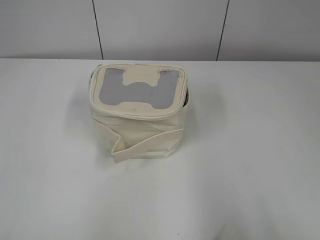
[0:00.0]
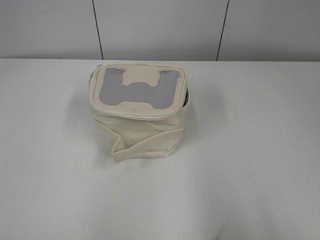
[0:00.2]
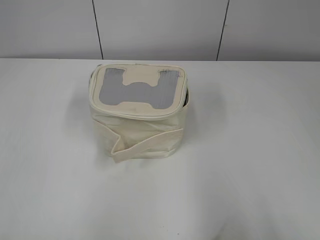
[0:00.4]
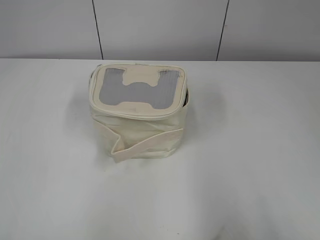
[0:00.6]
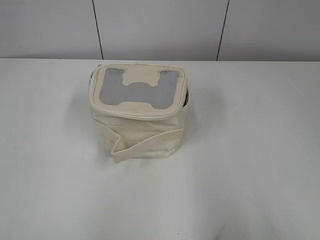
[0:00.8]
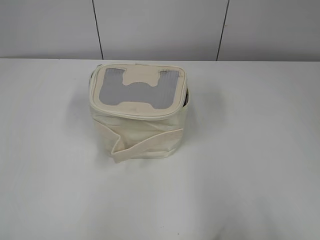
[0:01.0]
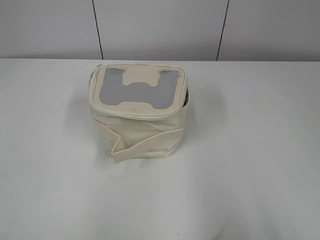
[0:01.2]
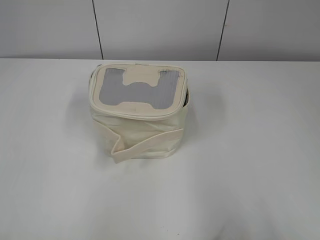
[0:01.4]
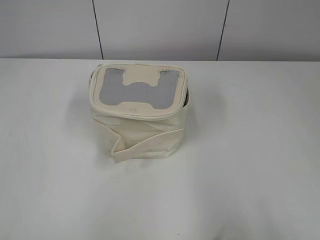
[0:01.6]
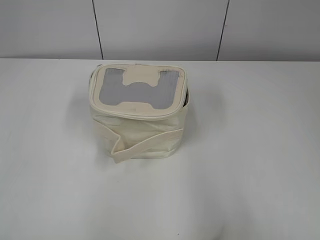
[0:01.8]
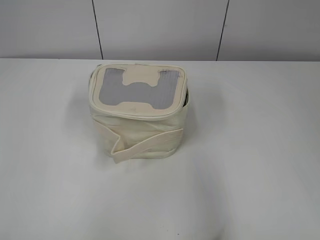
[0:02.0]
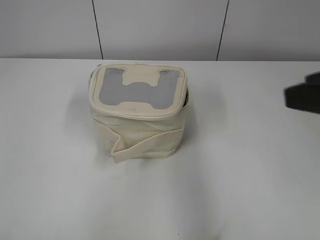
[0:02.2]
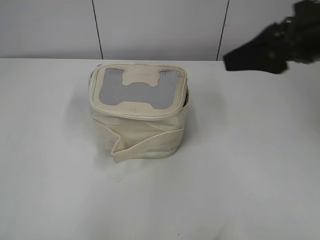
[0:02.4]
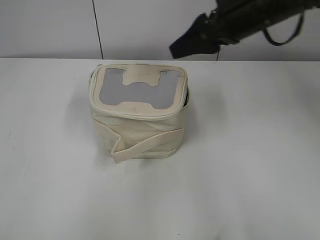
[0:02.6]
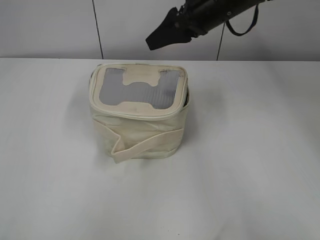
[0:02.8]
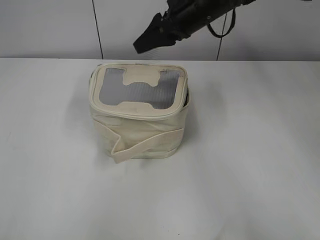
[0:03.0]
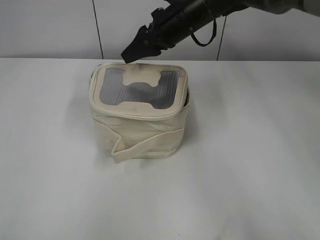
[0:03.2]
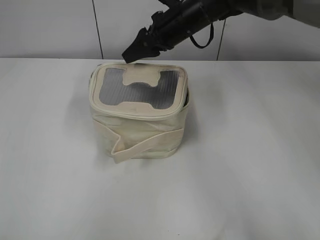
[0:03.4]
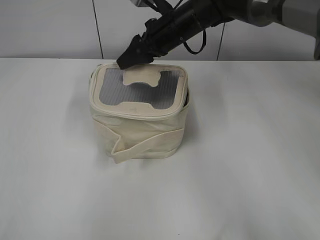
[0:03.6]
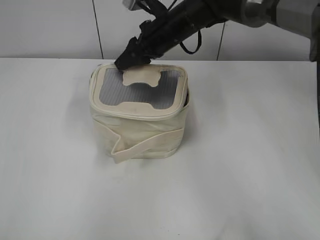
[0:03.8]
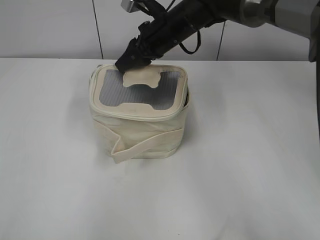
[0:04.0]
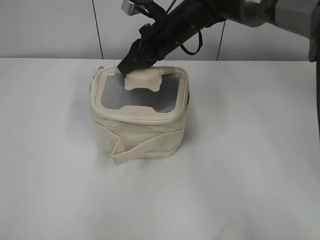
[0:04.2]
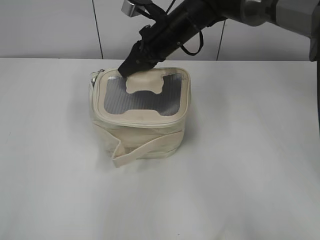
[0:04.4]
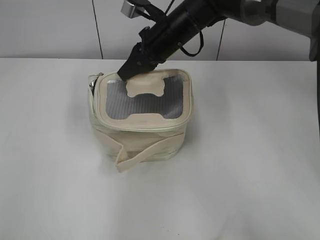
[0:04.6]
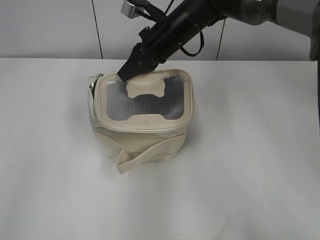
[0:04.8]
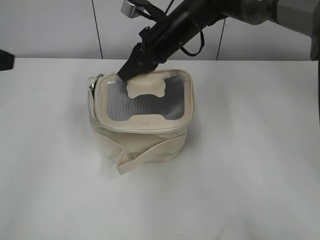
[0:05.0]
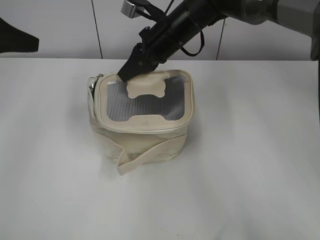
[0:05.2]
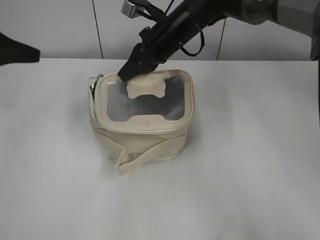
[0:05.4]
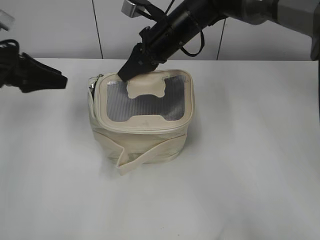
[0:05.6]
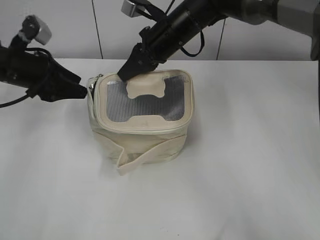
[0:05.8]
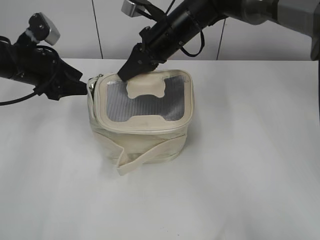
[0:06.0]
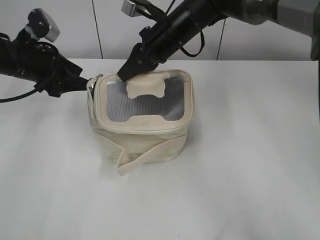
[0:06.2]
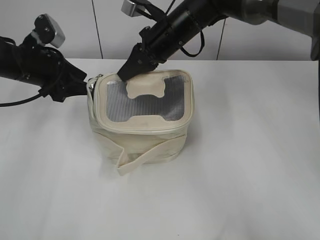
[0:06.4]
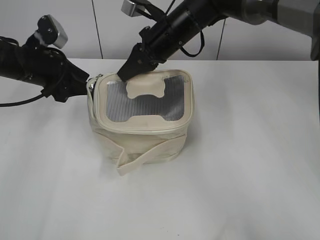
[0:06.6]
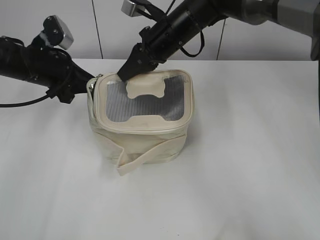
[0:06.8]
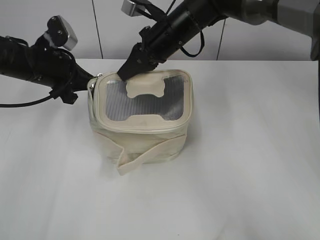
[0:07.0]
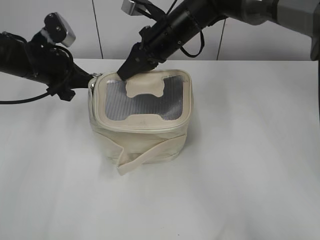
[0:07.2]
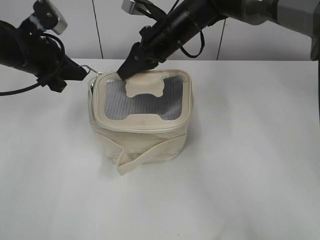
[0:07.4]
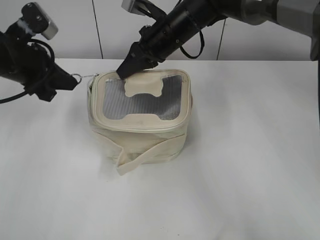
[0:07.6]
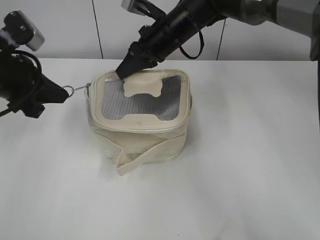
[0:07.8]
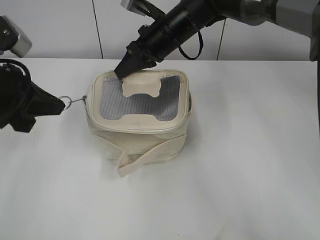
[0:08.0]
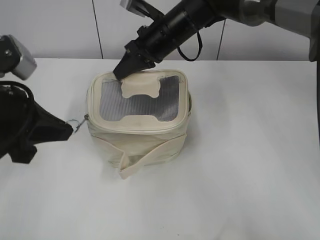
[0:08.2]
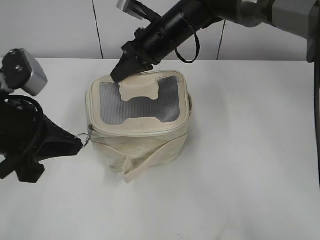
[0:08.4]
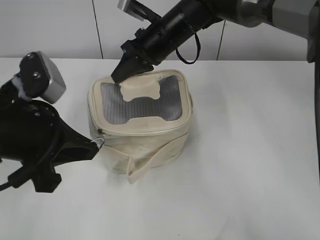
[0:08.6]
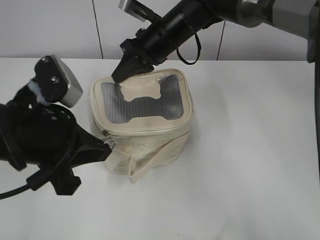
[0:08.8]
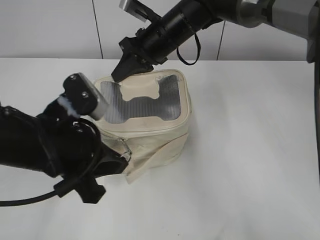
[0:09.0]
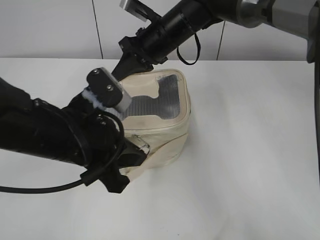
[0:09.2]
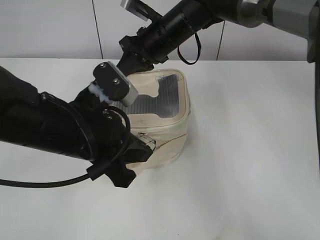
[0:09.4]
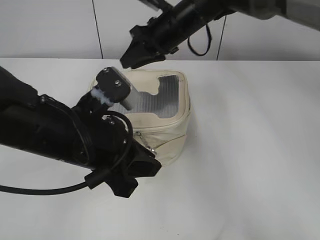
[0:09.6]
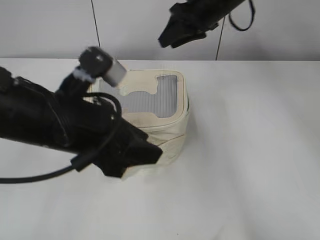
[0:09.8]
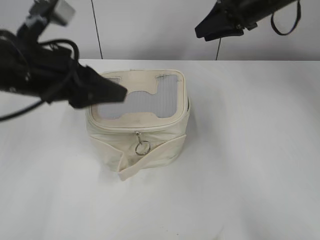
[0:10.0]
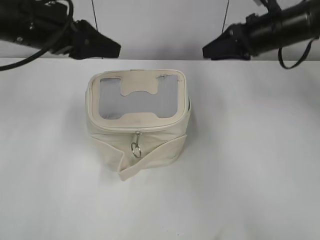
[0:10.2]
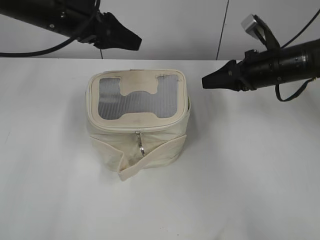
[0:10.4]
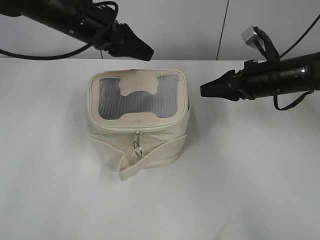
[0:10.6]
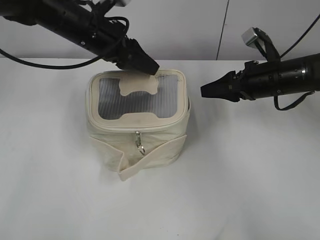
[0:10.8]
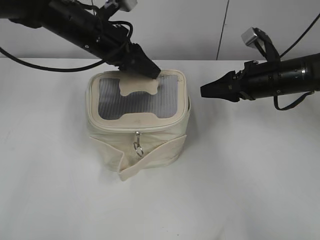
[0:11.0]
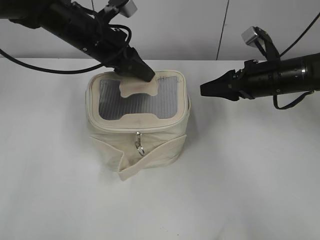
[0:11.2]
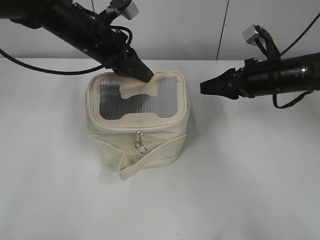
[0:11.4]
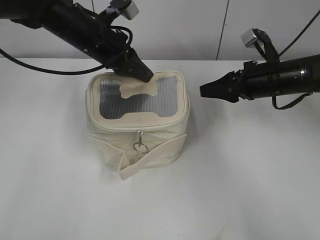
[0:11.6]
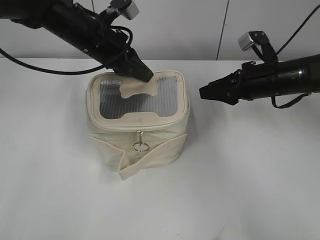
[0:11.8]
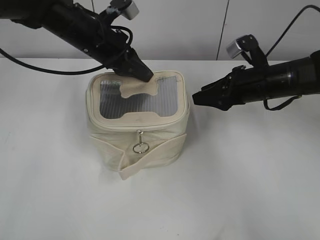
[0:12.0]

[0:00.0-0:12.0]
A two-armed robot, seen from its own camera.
Step, 0:00.0 to 0:09.4: Zip up the bag with your left hand.
0:01.6 to 0:03.0: The right gripper is displaced forward and to the left by some 50 cm.
0:03.0 to 0:04.4: The right gripper heads downward and to the left, covering some 10 cm, and closes up.
0:04.4 to 0:06.0: The left gripper is displaced forward by approximately 35 cm, and opens its fingers.
0:06.0 to 0:07.6: The left gripper closes its fingers.
0:07.6 to 0:09.0: The left gripper goes approximately 20 cm backward and to the right.
0:09.0 to 0:10.4: The left gripper shifts approximately 20 cm forward and upward, and opens its fingers. Meanwhile the right gripper shifts about 20 cm to the right, and opens its fingers.
0:10.4 to 0:12.0: The left gripper heads downward, covering roughly 5 cm, and closes up.

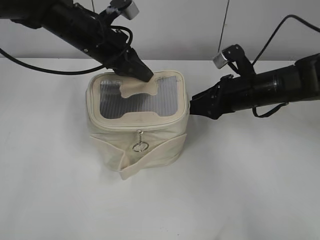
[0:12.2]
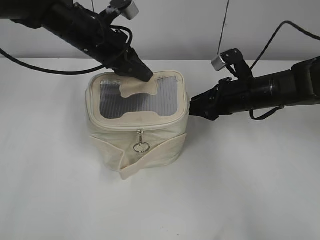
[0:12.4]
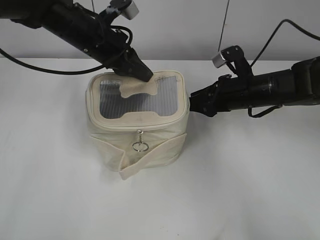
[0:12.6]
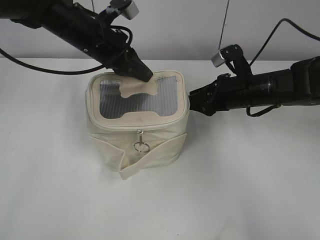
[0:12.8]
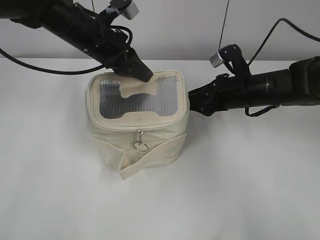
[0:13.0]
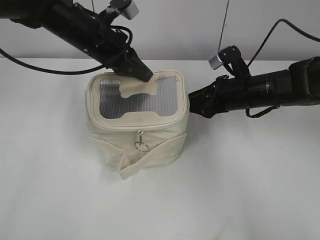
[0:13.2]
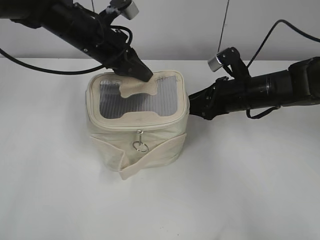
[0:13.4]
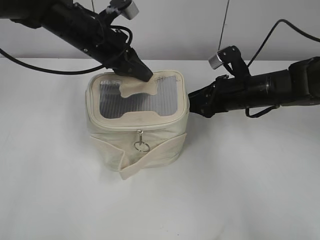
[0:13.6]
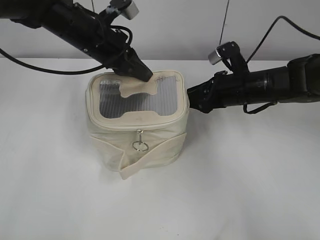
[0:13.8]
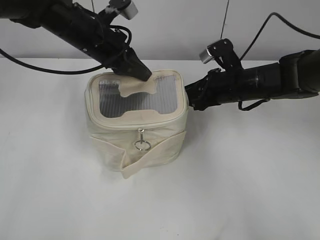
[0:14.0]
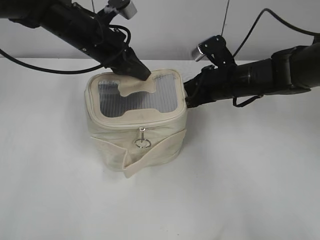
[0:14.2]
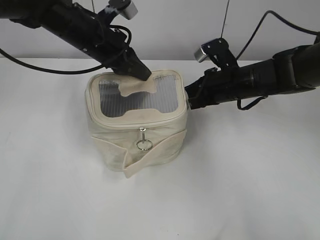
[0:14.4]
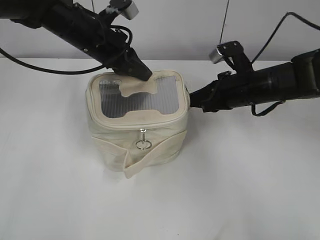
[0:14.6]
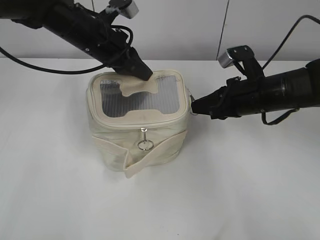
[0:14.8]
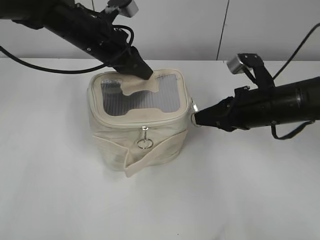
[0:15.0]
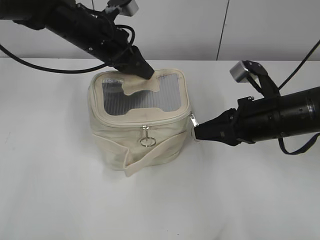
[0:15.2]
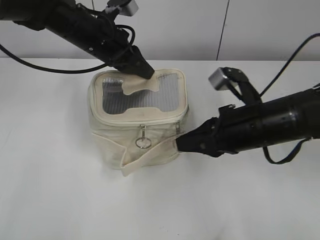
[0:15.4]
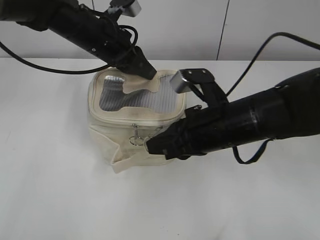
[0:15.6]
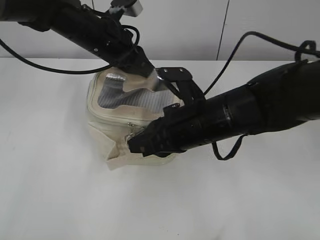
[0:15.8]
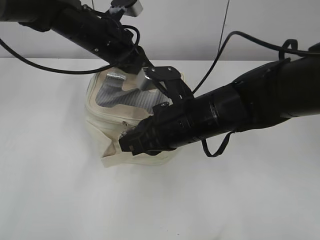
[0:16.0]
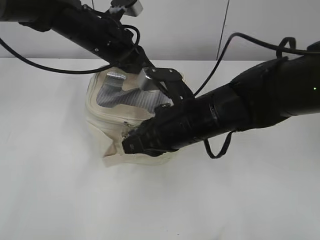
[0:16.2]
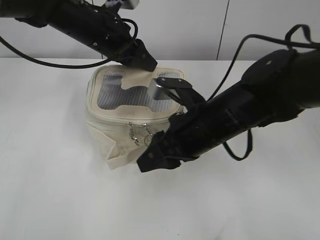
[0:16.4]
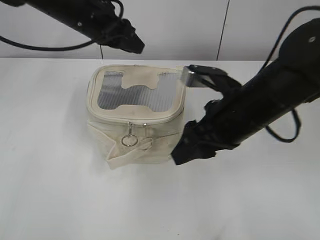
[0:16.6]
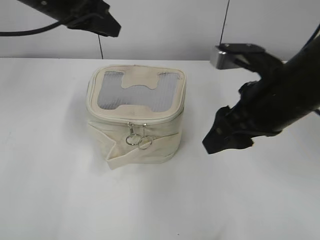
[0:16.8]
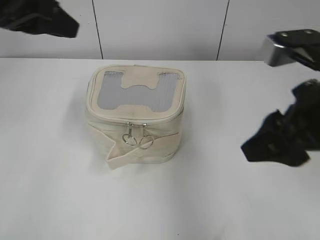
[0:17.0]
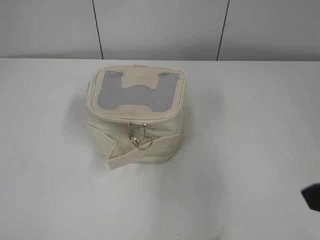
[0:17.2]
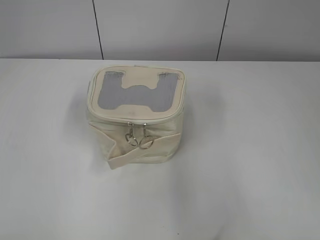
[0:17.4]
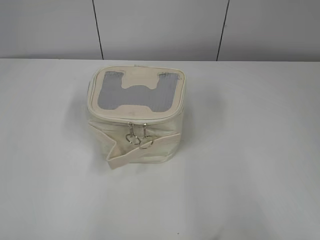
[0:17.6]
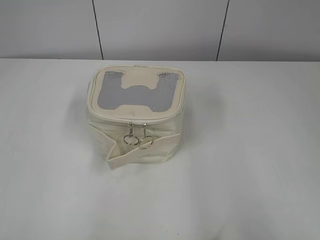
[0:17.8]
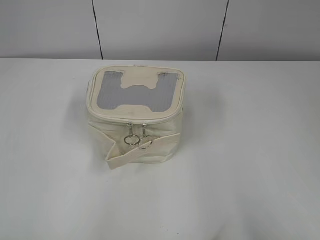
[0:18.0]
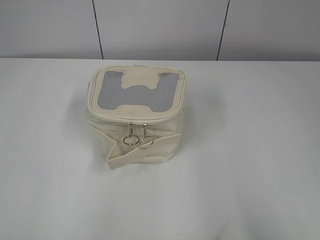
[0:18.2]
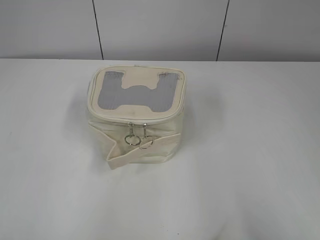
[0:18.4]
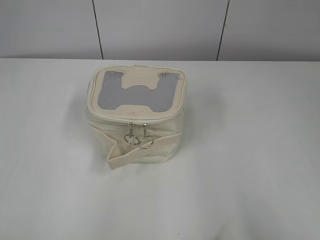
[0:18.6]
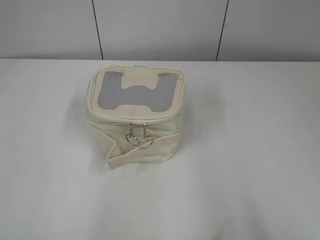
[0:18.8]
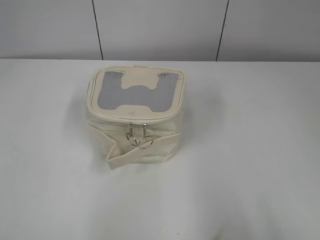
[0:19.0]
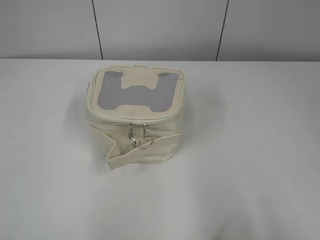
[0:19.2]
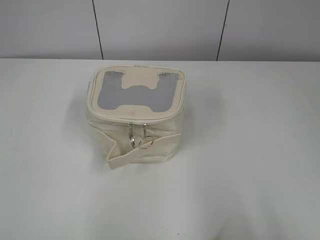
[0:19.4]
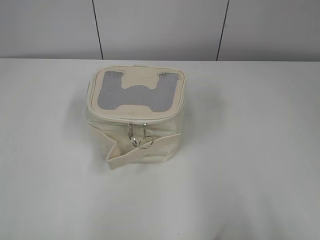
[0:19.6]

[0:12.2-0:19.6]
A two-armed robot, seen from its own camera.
Step, 0:12.2 to 0:16.2: Zip up the bag with your right hand.
0:12.2 to 0:13.6: There are only small adjustments of the grippers.
0:13.6 to 0:15.2: The right gripper is displaced backward by approximately 10 cm, and closes up.
0:15.2 to 0:16.6: The right gripper goes about 5 cm to the left, and opens. The left gripper opens up.
0:16.6 to 0:18.2: The left gripper moves backward and to the left, roughly 50 cm. The right gripper heads backward and to the right, covering about 30 cm.

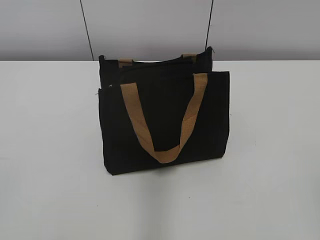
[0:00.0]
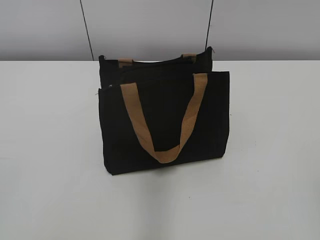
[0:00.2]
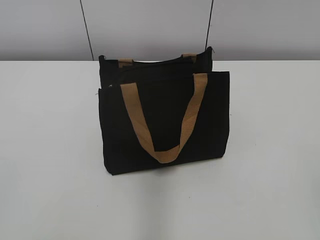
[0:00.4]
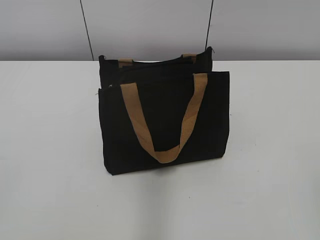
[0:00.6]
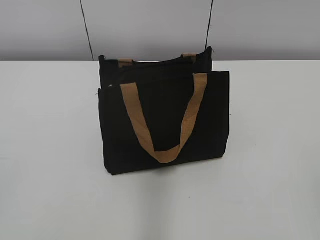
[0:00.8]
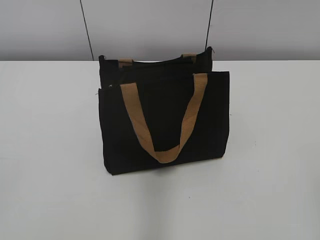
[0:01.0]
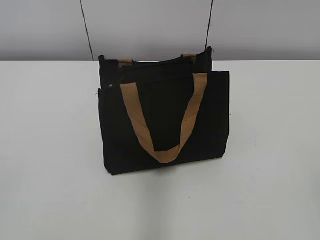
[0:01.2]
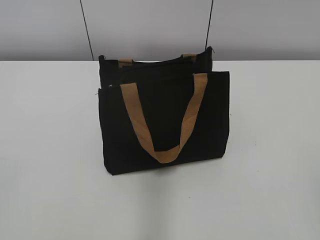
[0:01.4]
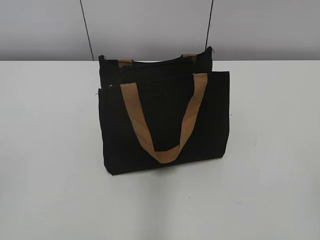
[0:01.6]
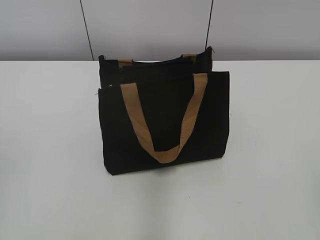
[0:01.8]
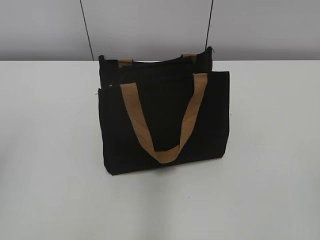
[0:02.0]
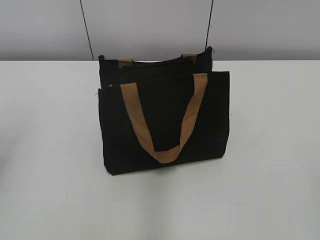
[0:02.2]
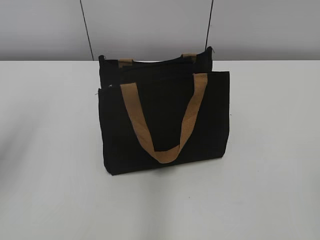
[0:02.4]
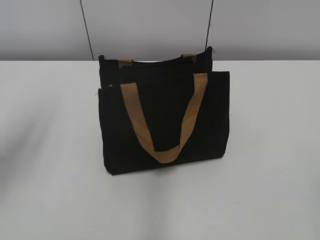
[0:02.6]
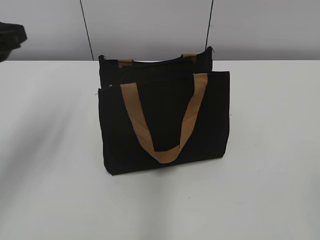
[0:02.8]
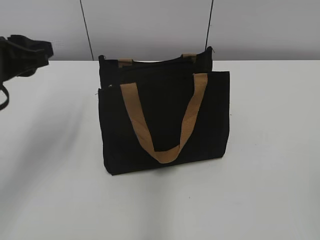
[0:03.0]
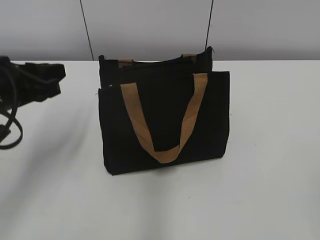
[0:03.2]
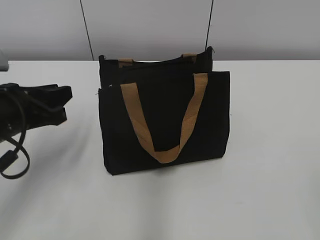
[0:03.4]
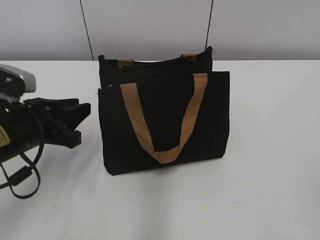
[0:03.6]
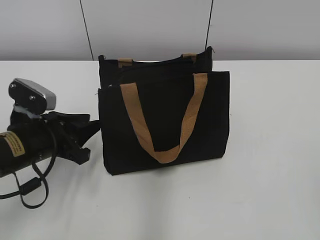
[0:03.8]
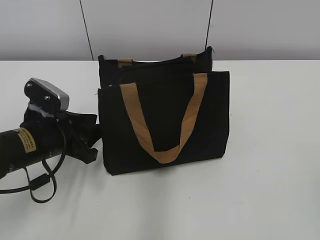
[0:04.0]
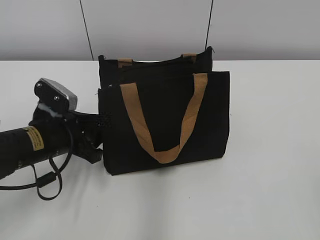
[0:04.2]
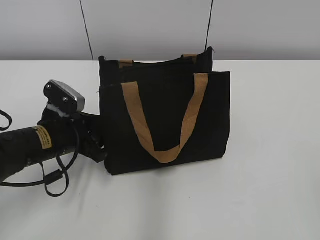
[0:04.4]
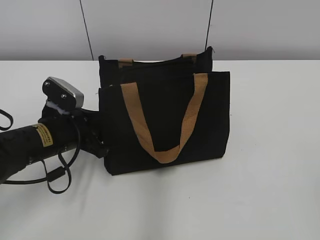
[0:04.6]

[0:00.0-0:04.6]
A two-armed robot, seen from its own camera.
0:01.6 to 0:03.0: The left gripper heads forward, covering roughly 25 cm.
0:03.0 to 0:04.6: The left gripper moves downward, roughly 15 cm.
